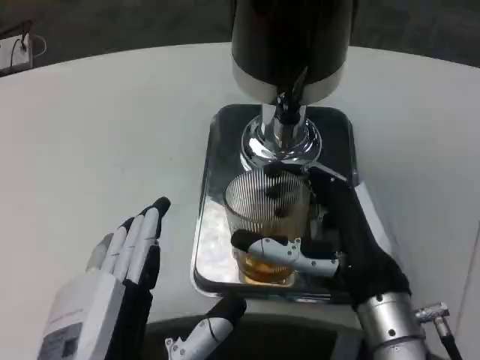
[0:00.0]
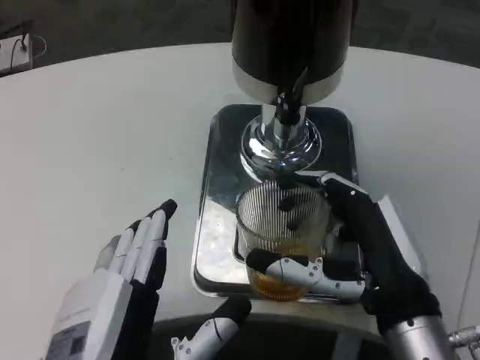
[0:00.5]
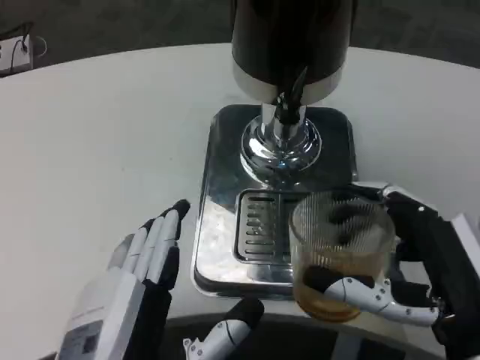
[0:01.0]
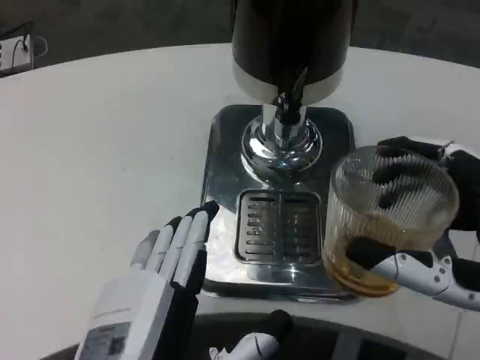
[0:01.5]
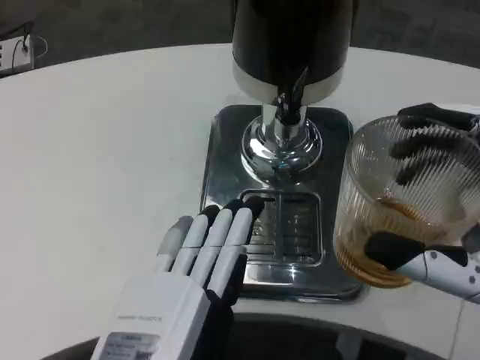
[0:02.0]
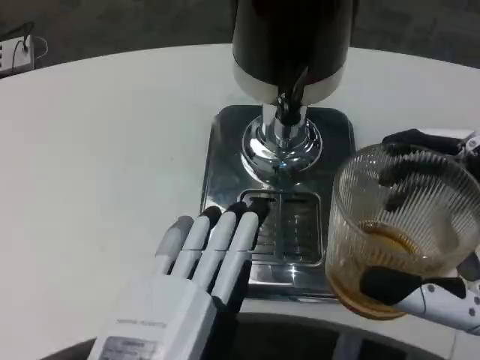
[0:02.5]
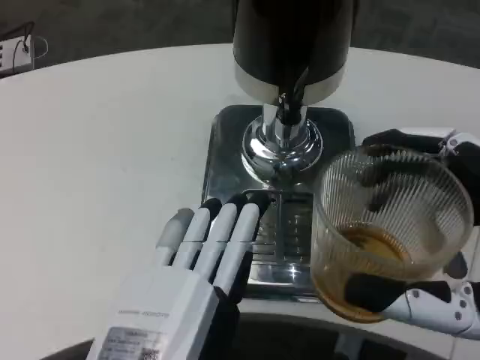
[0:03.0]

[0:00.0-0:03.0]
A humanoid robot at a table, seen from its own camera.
Task of the whole recording: Grasp the cup under the faucet to collect the drink, then remove the cup.
0:00.0 to 0:01.5: The right hand goes approximately 10 cm backward and to the right.

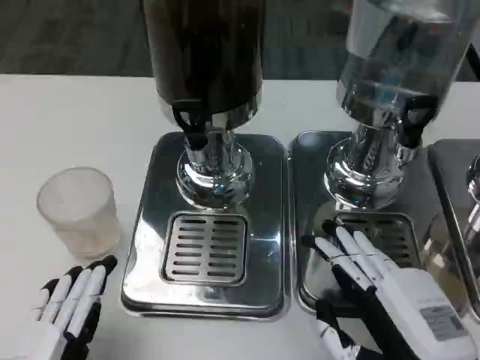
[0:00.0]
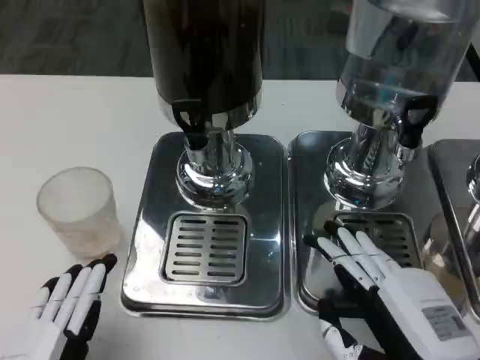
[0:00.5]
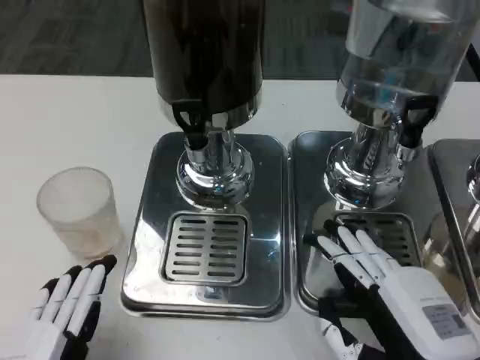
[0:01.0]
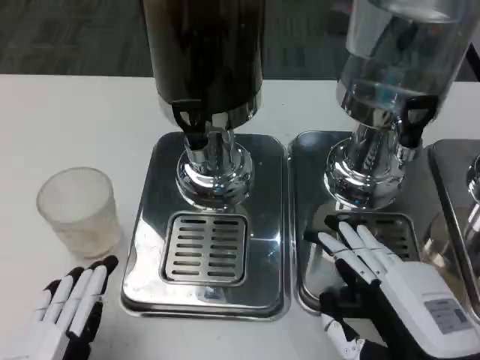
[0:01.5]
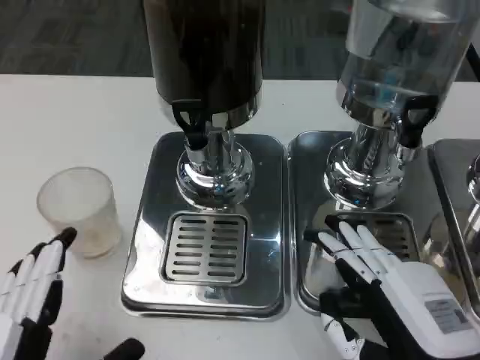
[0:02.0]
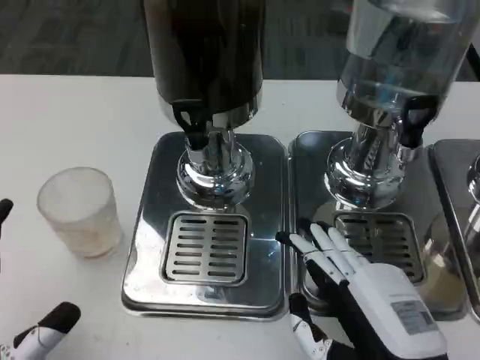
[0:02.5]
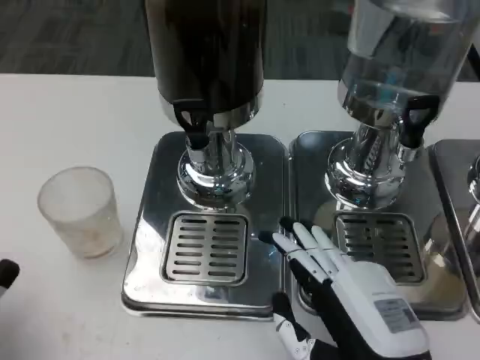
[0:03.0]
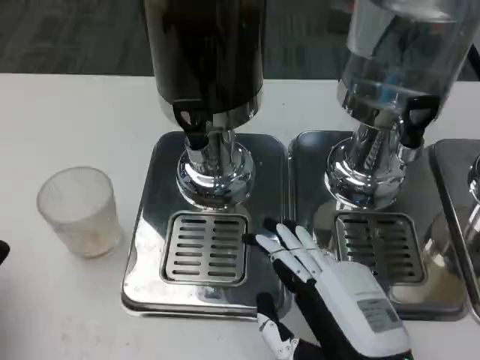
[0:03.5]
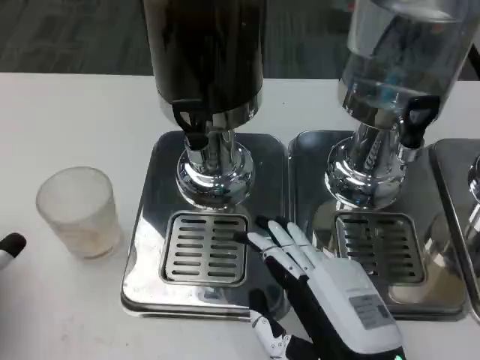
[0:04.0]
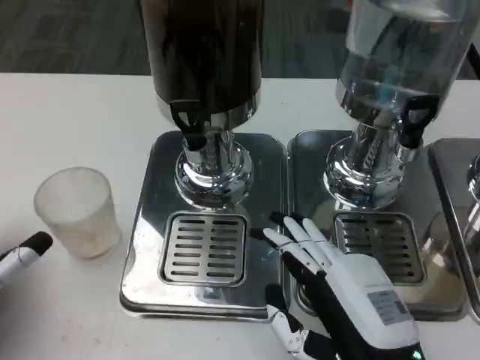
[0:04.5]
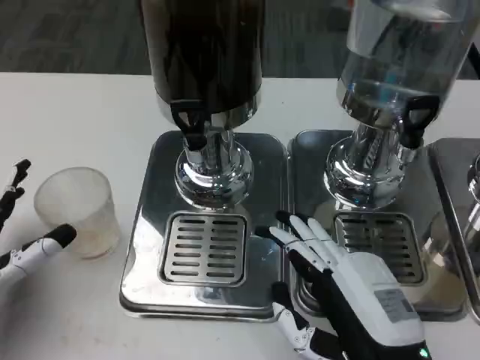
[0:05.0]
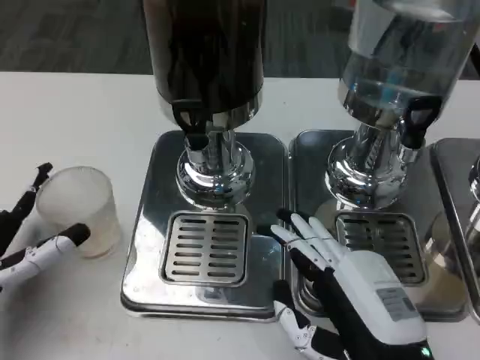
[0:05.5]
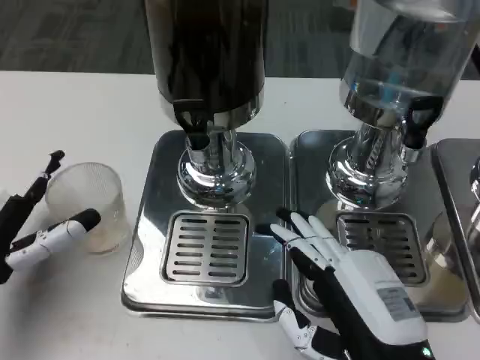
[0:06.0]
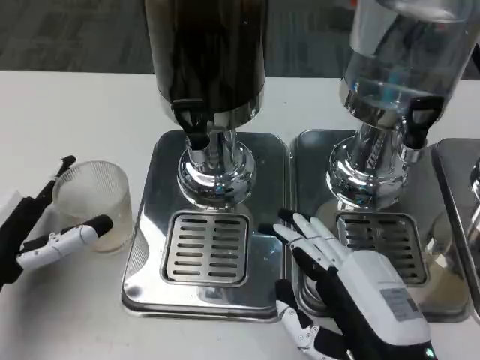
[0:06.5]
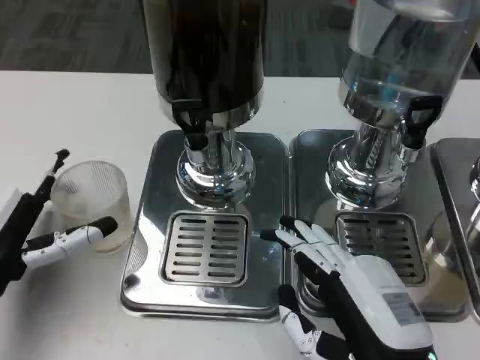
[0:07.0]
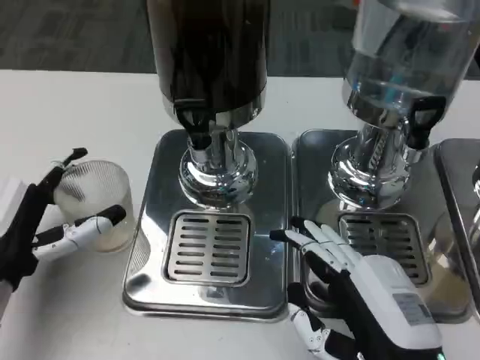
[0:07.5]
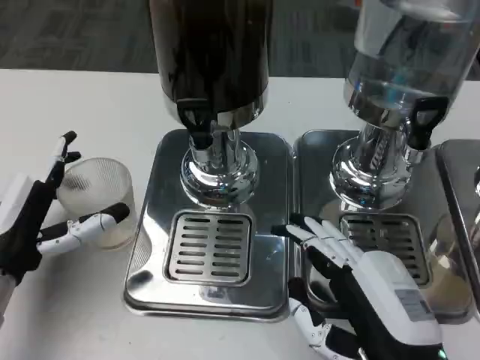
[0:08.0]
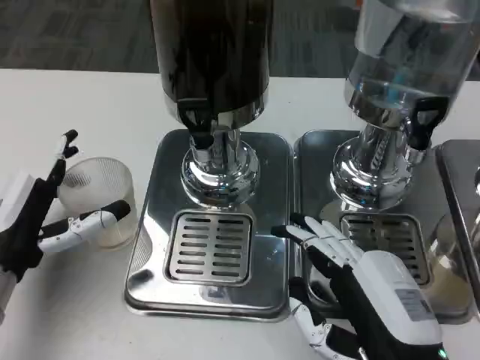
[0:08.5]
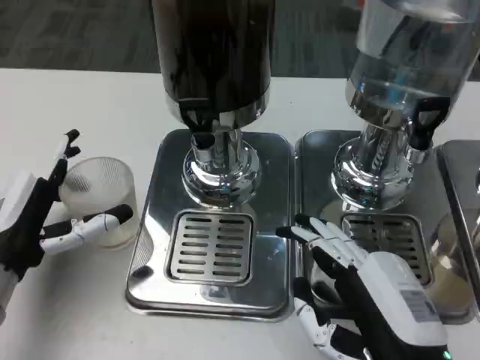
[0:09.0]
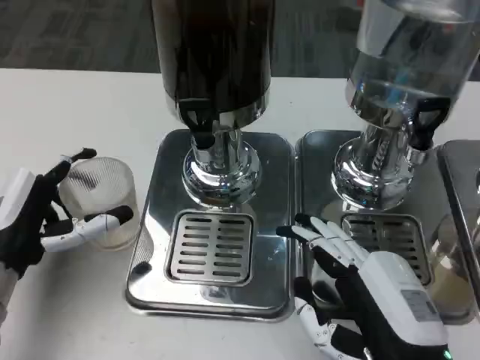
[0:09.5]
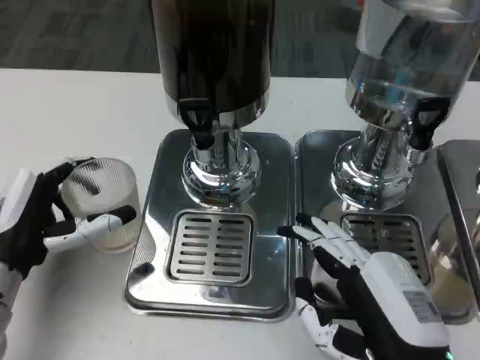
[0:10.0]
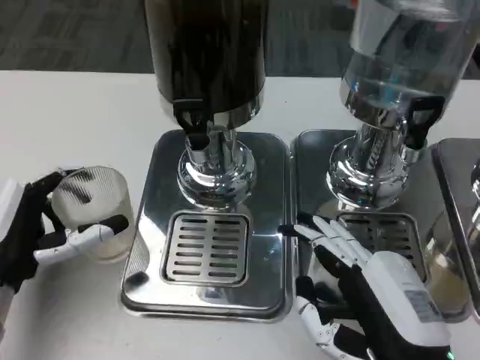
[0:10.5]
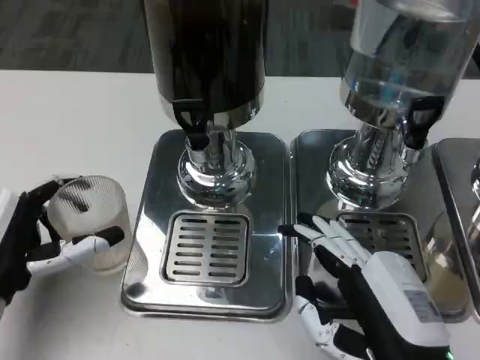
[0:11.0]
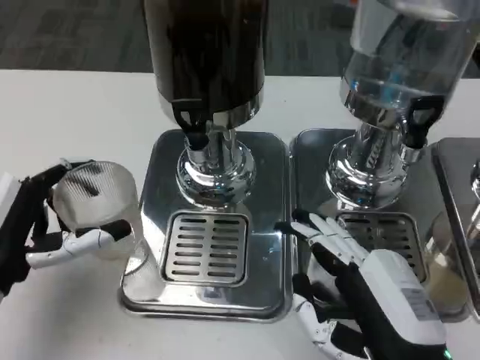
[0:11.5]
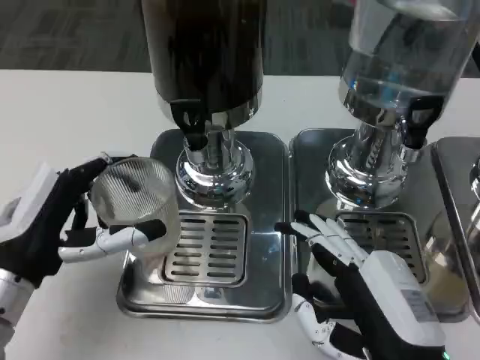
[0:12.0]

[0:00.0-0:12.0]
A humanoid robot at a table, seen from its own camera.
Task of the whole recording: Grasp the cup under the faucet to collect the drink, then remove the cup.
0:00.0 to 0:02.0: The hands make only small movements.
0:02.0 to 0:04.0: The right hand shifts approximately 5 cm to the left, while the left hand is displaced to the left and forward by approximately 15 cm.
0:04.0 to 0:06.0: The left hand goes approximately 5 cm forward.
0:08.0 to 0:10.0: Both hands stay about where they are.

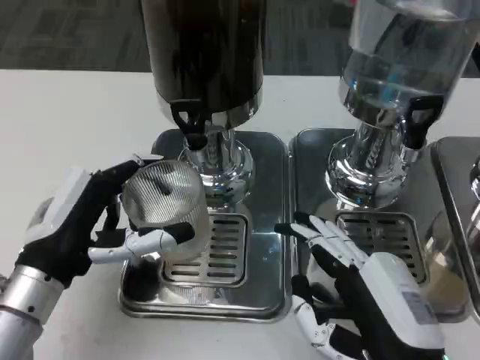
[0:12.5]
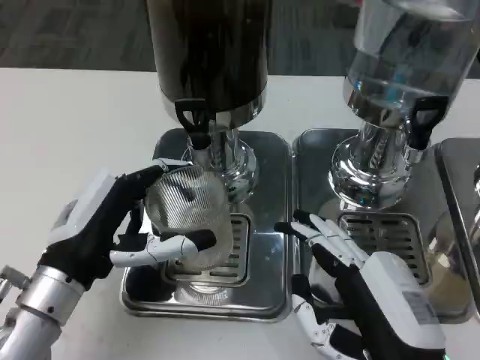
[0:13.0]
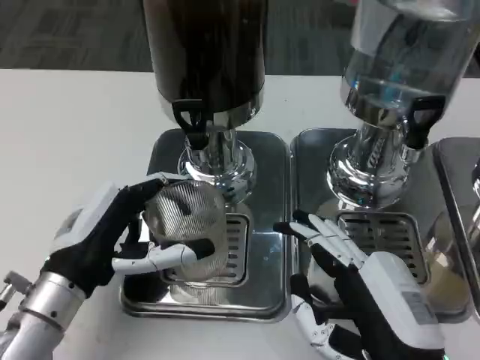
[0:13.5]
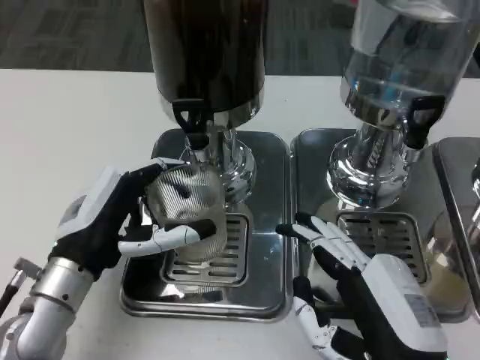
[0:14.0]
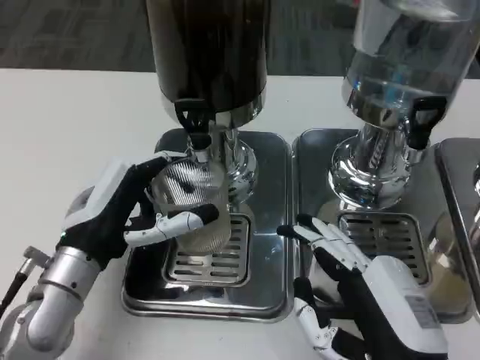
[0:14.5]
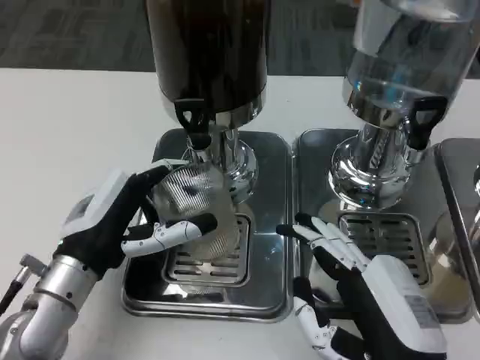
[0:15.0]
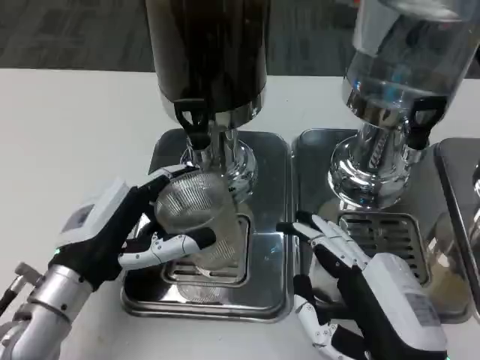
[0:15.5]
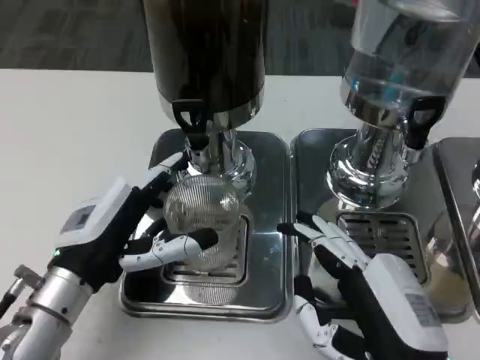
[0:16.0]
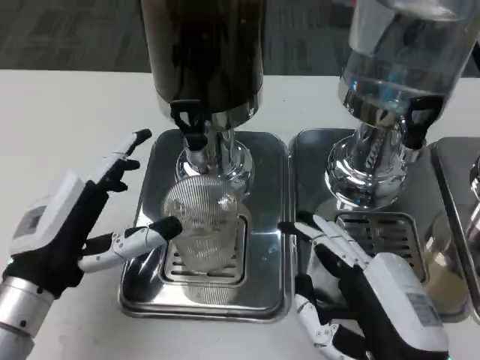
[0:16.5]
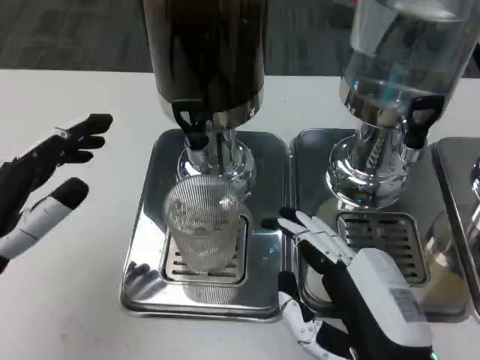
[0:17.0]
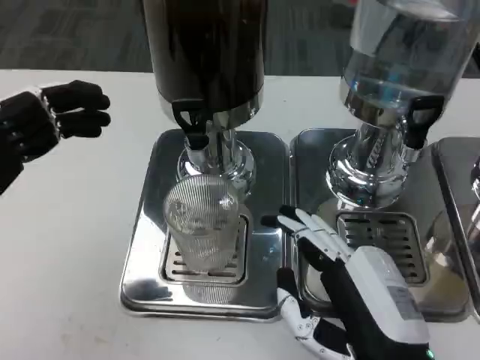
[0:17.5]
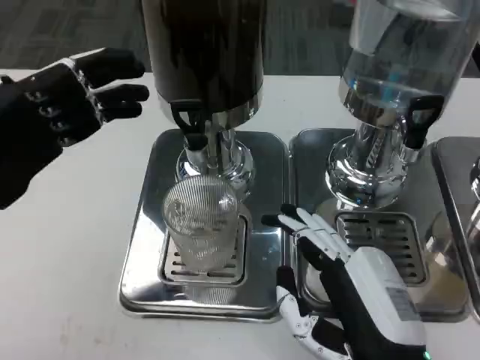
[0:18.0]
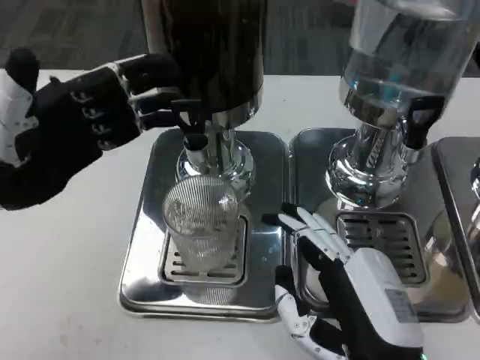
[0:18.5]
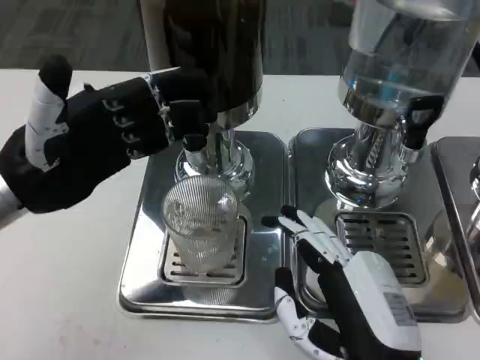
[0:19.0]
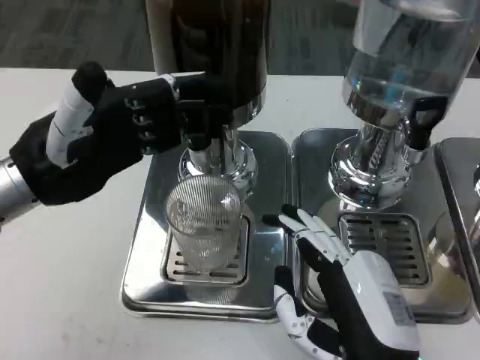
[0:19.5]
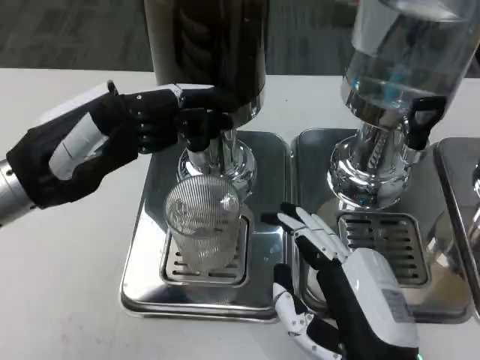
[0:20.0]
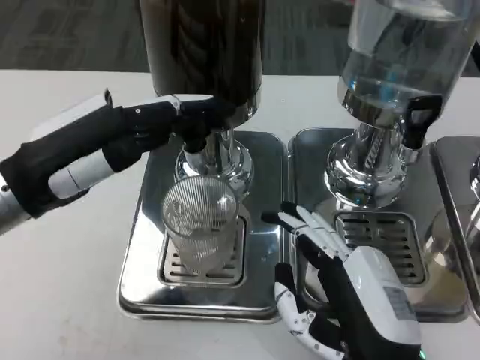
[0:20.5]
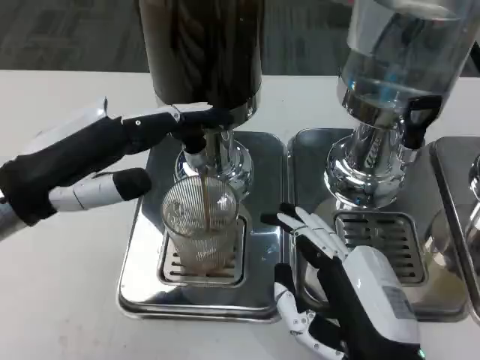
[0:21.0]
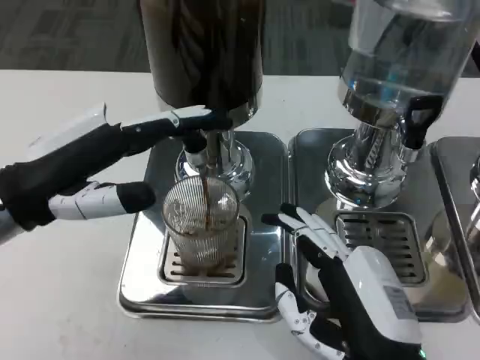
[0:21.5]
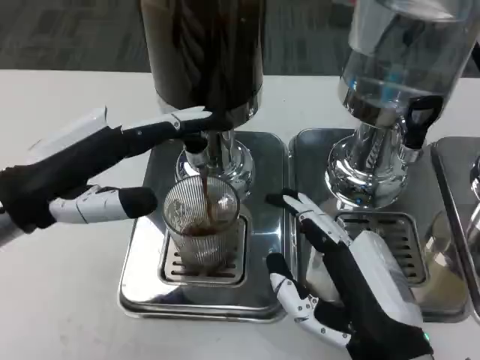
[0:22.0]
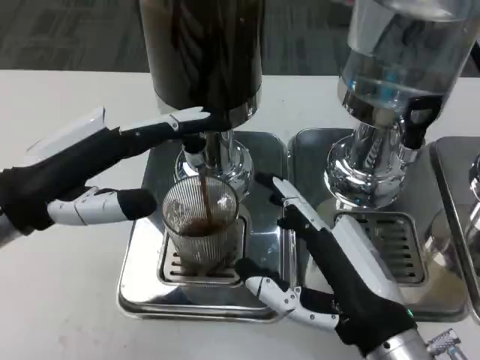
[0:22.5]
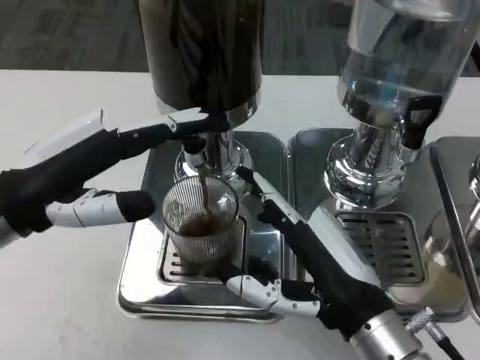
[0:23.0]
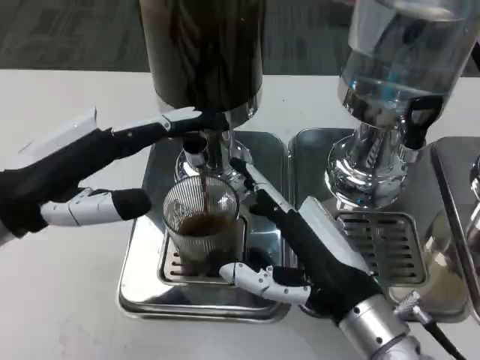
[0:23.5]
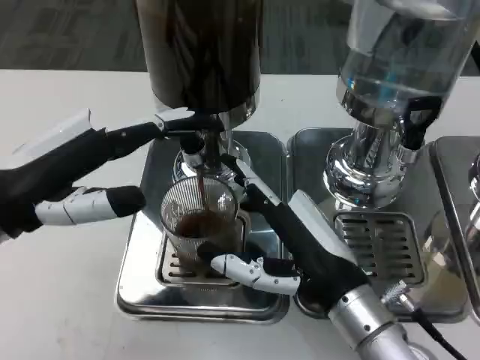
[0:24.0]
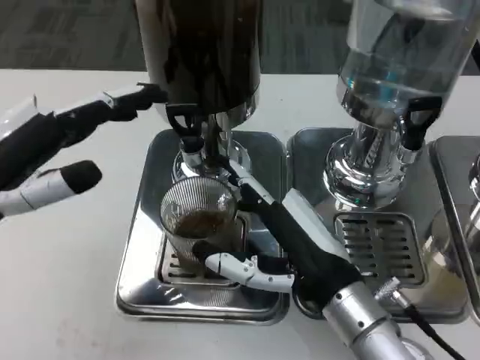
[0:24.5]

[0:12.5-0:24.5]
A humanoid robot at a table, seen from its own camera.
Task of the whole recording: Grasp the cup under the faucet to collect the drink, then remove the cup.
0:14.5 to 0:16.5: The left hand moves about 5 cm.
0:16.5 to 0:18.5: The left hand moves upward, forward and to the left, roughly 15 cm.
0:20.5 to 0:22.5: The hands make only small movements.
0:22.5 to 0:24.5: The right hand is displaced forward by some 5 cm.
